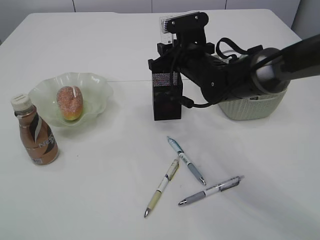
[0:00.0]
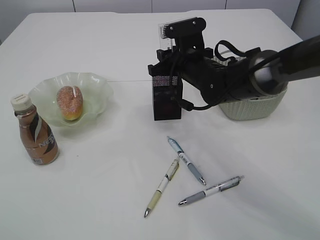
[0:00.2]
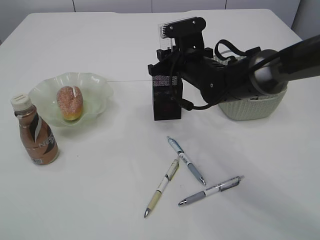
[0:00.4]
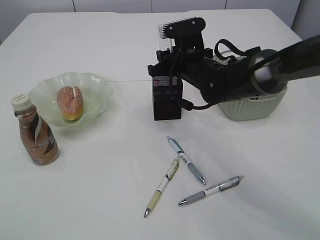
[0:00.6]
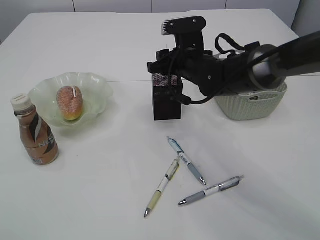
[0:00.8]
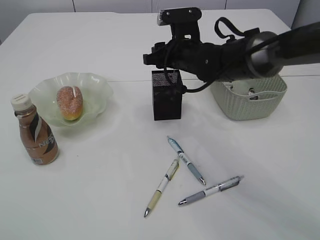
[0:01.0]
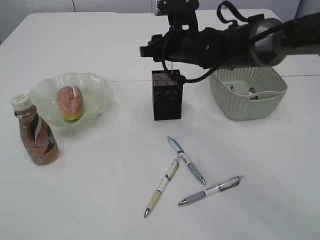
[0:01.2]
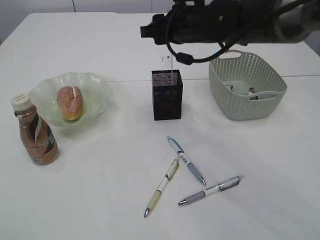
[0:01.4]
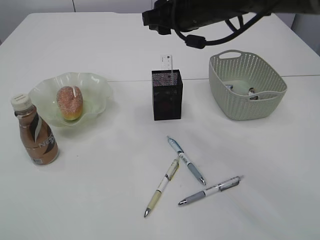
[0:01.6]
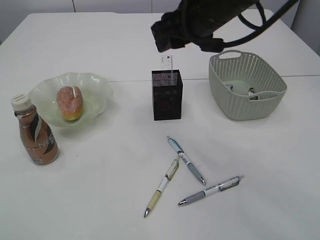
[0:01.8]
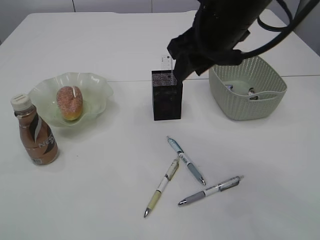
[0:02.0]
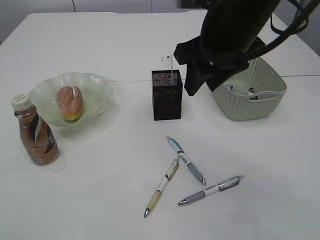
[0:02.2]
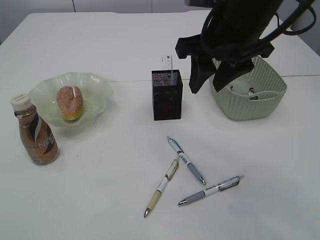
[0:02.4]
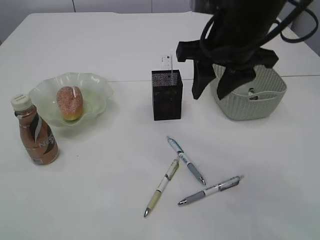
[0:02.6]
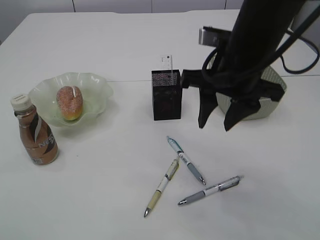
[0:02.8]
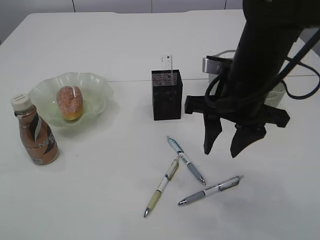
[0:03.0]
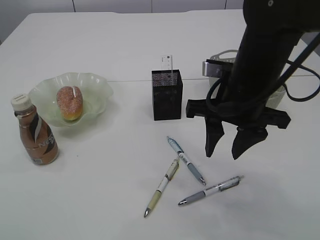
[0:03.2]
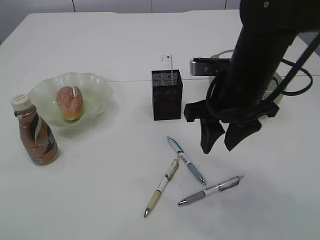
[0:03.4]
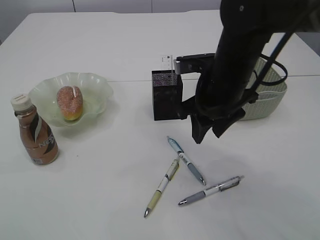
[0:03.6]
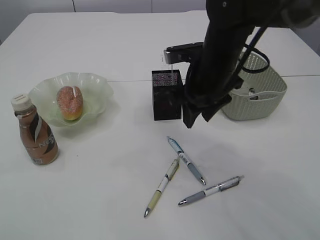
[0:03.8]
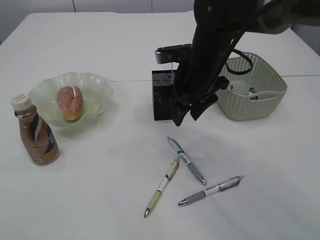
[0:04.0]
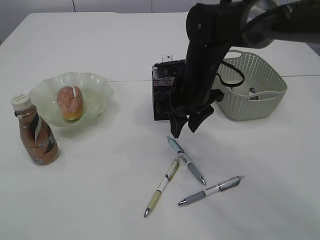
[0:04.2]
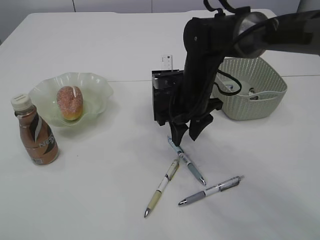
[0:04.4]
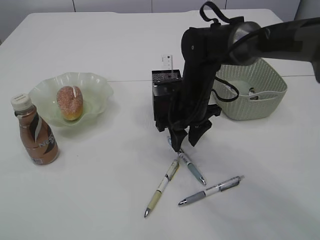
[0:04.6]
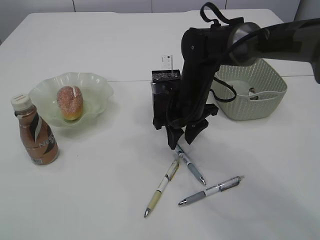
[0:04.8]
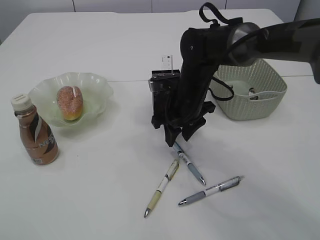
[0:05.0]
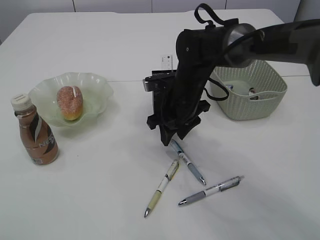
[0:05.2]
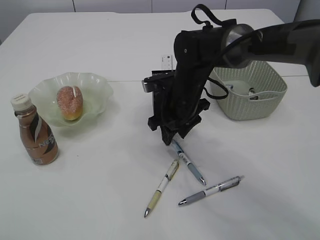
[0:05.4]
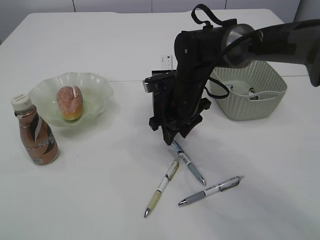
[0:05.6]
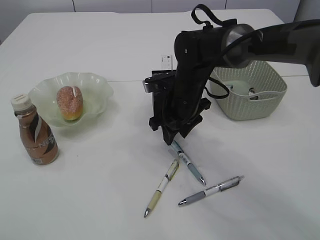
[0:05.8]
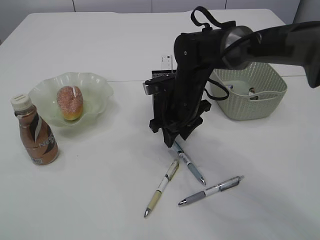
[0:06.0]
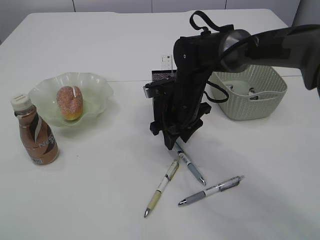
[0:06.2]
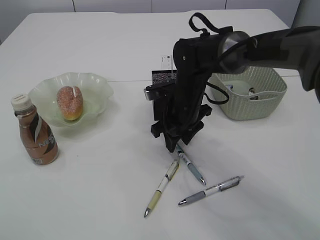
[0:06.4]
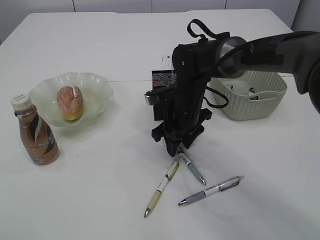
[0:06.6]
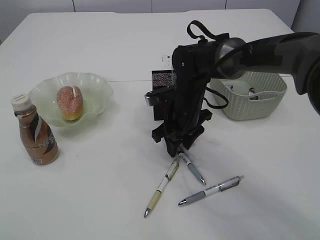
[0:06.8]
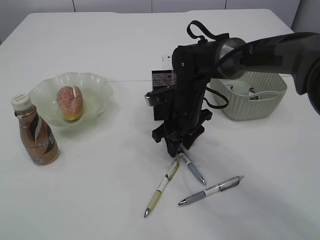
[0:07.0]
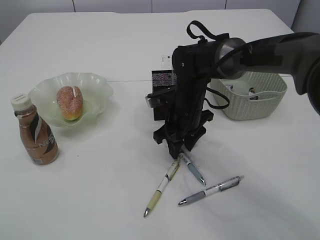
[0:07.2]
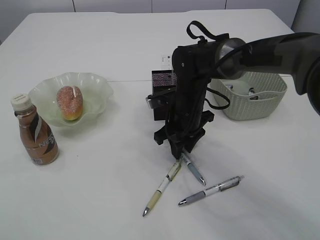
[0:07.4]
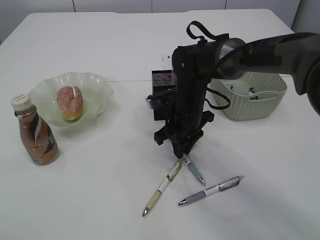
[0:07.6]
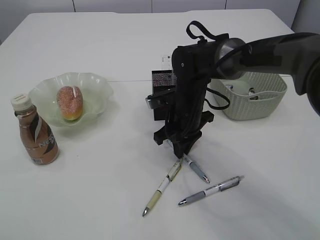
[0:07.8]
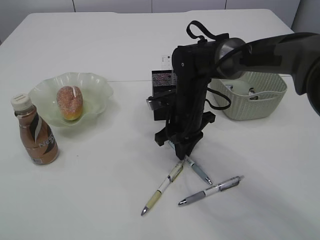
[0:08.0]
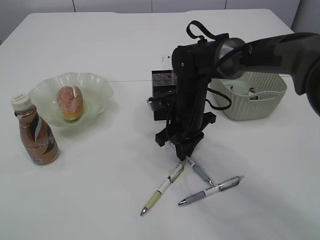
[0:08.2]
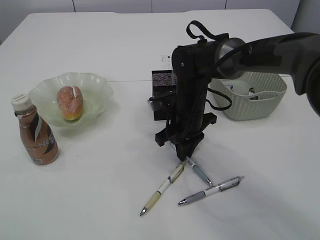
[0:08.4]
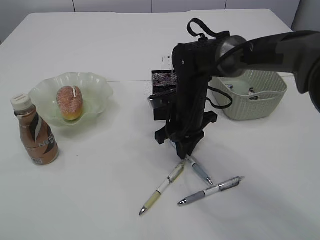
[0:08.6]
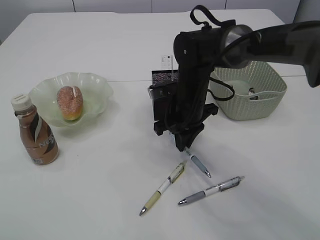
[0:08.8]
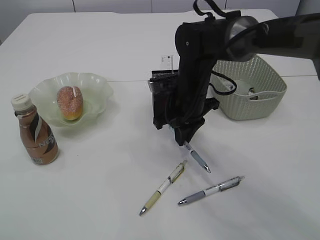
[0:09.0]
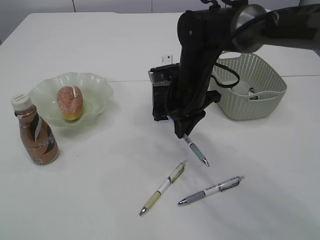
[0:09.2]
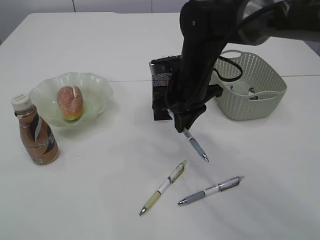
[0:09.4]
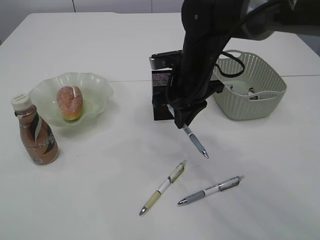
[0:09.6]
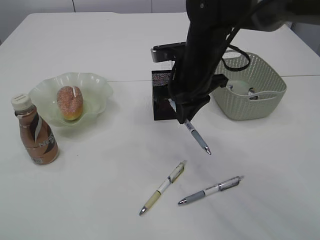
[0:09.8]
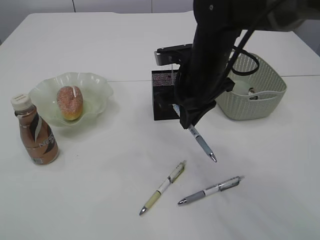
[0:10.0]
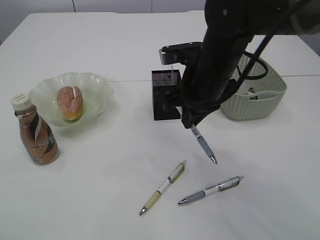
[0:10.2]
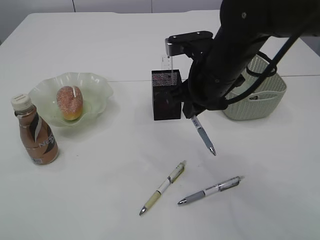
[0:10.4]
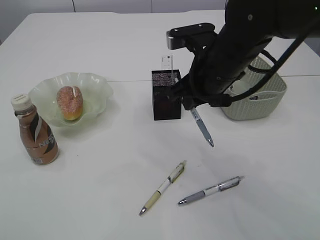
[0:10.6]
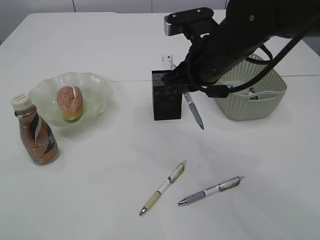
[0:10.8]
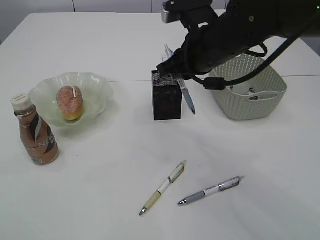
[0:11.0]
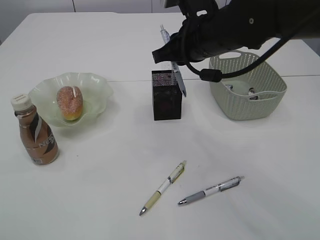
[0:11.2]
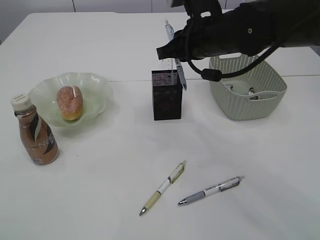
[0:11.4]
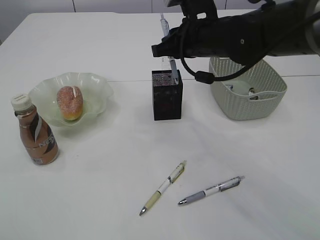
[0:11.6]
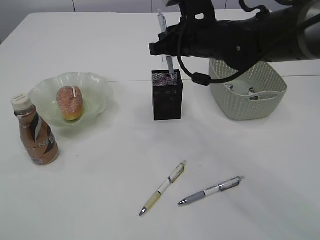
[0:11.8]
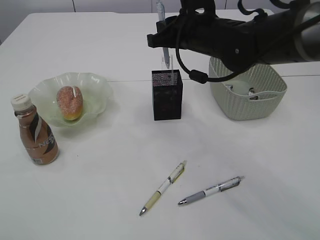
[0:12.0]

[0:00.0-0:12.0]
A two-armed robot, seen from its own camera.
Step, 0:01.6 to 0:09.6: Pick up the pen with right arm.
0:00.0 to 0:01.6: The right gripper goes some 10 cm upward.
0:01.6 to 0:03.0: The right gripper heads backward and downward, covering roughly 10 cm.
0:03.0 to 0:04.4: The right gripper travels forward and downward by about 15 cm.
0:04.4 to 0:09.0: The grippers make only small movements.
0:09.0 to 0:10.4: The right gripper heads upward and backward, covering roughly 10 cm.
0:10.4 to 0:12.0: The right gripper travels forward by roughly 5 cm.

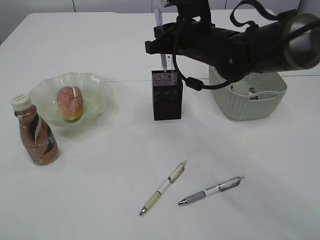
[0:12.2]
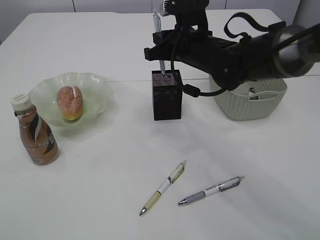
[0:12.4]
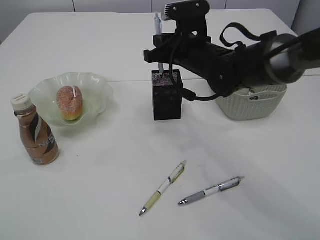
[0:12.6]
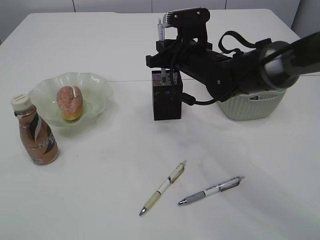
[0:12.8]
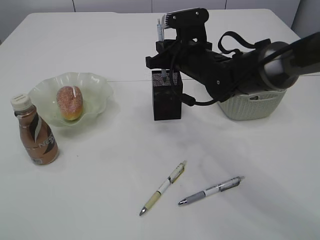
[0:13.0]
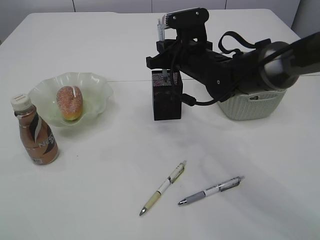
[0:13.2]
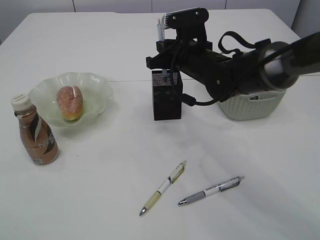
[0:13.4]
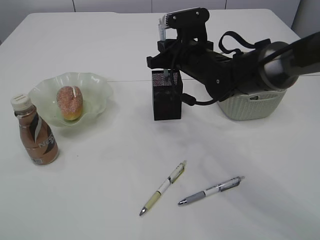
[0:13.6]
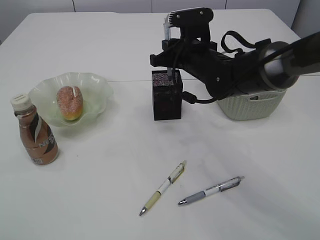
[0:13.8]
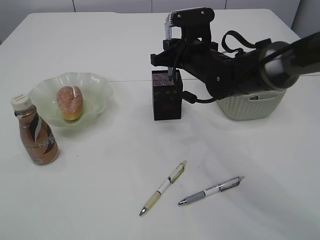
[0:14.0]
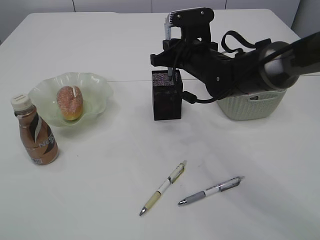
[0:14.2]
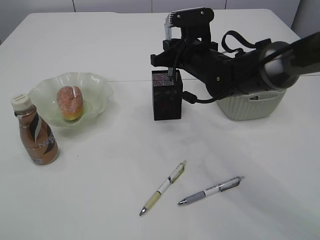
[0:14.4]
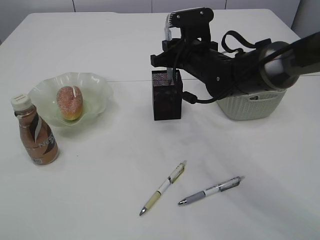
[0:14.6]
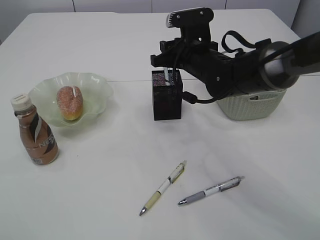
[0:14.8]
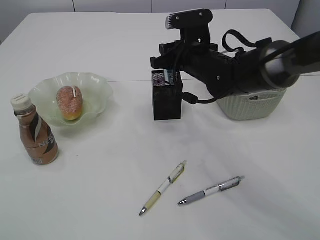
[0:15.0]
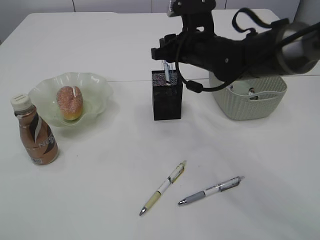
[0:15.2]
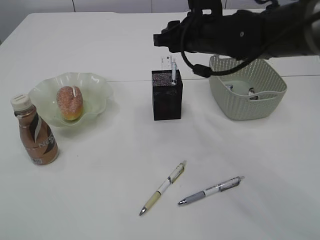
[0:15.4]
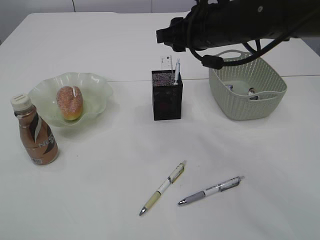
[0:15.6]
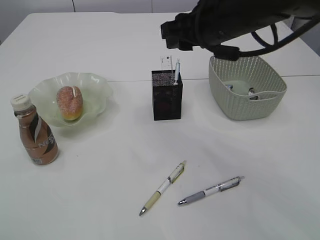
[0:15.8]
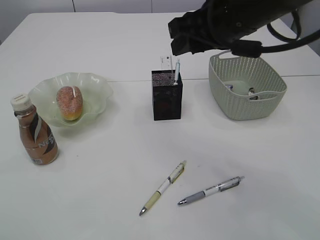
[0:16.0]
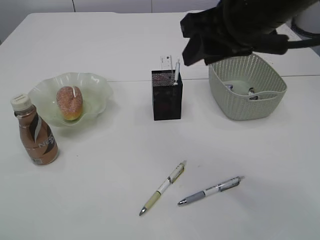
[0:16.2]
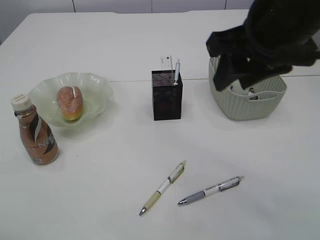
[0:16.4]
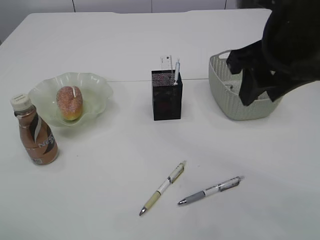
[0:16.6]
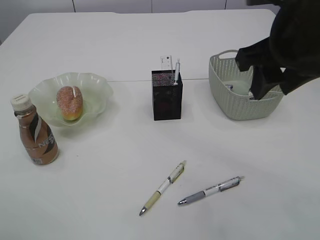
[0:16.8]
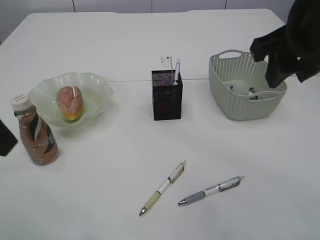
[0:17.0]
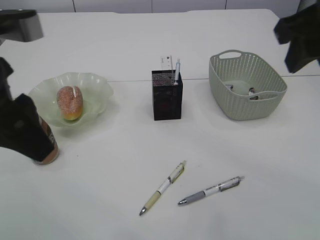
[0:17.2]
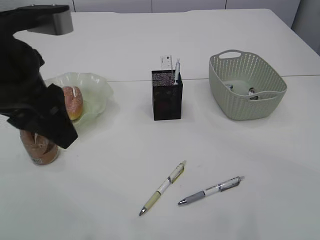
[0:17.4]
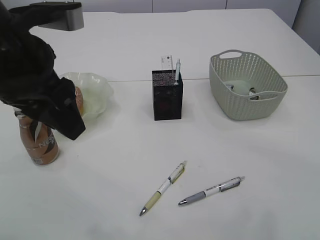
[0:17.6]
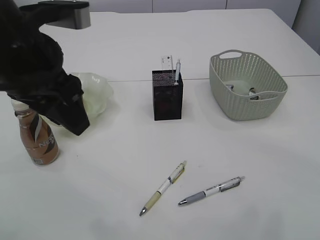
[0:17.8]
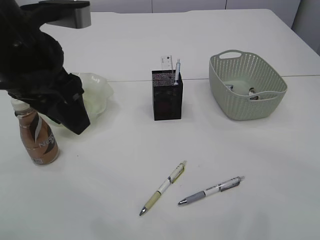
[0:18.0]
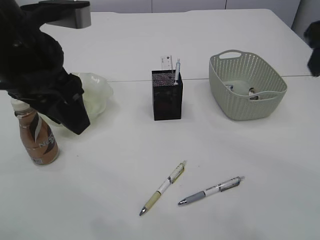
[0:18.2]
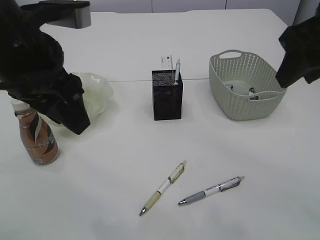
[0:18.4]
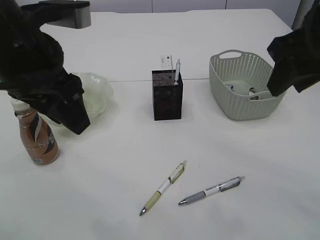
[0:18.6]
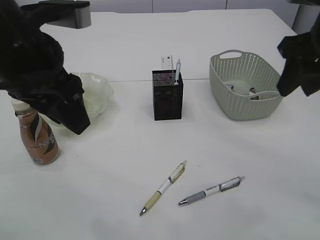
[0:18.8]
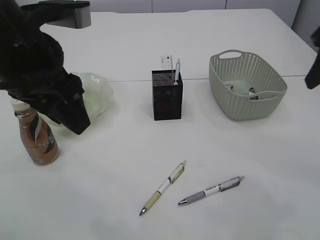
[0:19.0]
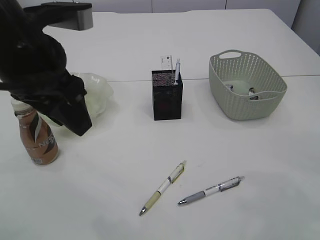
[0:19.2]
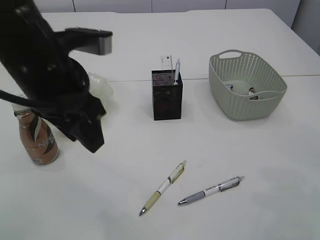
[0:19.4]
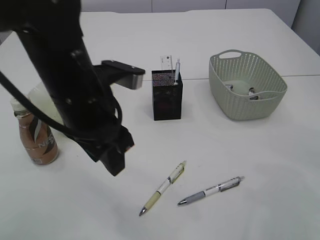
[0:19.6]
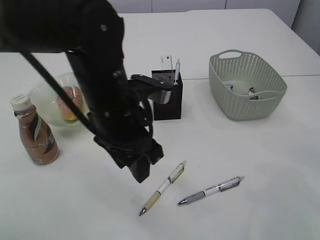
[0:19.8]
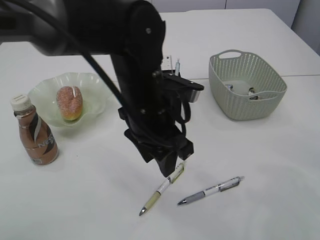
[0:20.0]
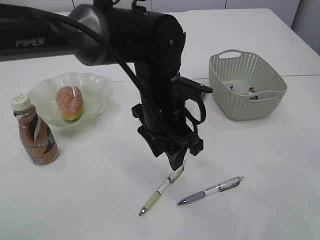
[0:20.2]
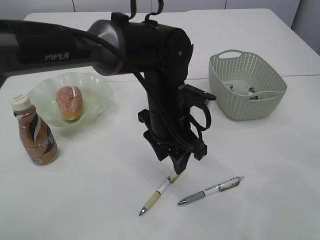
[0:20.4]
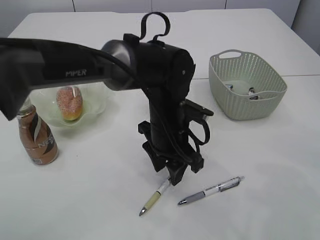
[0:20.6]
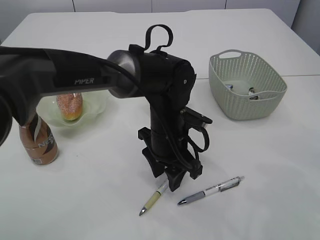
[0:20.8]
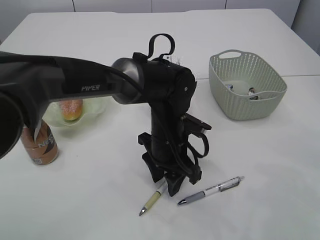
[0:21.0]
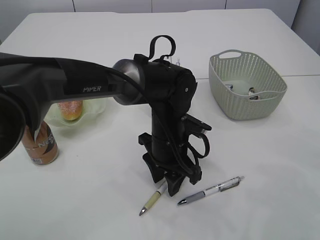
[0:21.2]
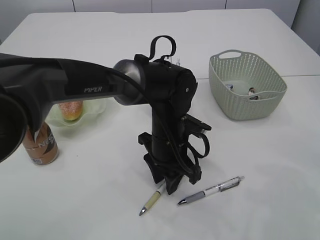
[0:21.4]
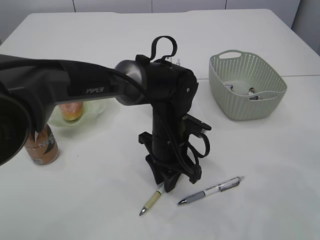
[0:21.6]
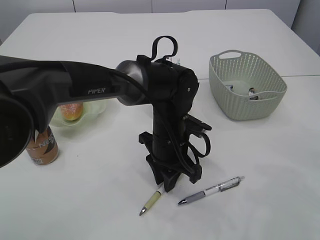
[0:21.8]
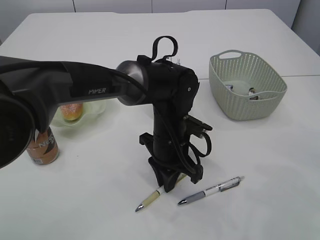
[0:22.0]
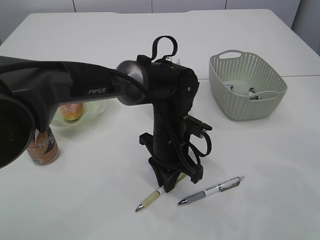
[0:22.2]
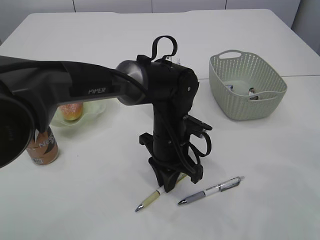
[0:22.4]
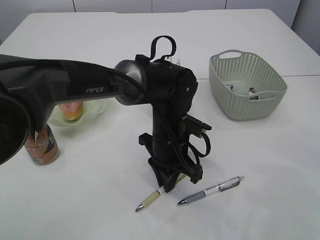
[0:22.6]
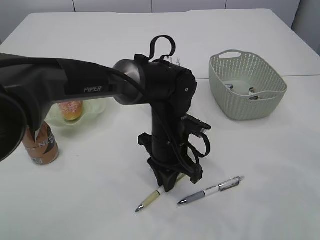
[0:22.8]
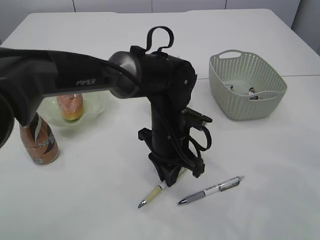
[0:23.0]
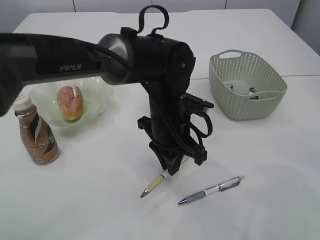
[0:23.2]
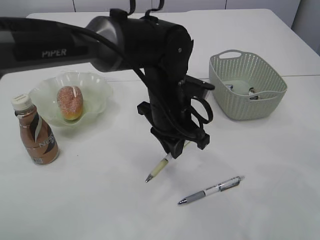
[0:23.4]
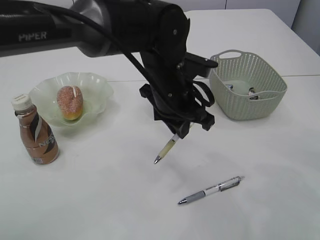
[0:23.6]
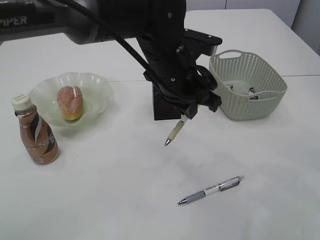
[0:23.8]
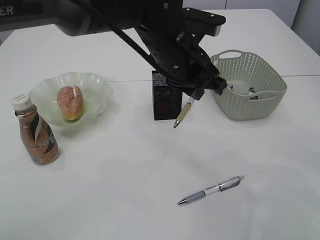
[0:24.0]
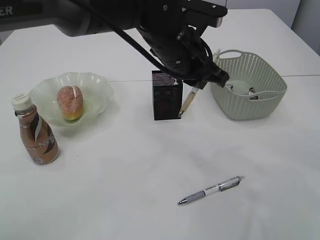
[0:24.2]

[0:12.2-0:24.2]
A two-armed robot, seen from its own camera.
Step, 0:12.2 to 0:15.8: Place the pen into the pen holder.
Step, 0:16.0 to 0:23.6: Pick up the pen with left arm.
0:12.2 to 0:13.8: There are only small adjustments of the grippers.
0:13.8 to 0:15.2: The right gripper opens its fingers.
0:15.2 to 0:16.6: The left gripper shifts by roughly 5 cm; the right gripper heads backward, upward and to the right, covering about 20 cm.
0:16.6 to 0:18.2: The left gripper goes about 15 cm to the right and forward; the right gripper is displaced to the right by roughly 10 cm.
0:18.2 to 0:19.8: The right gripper shifts some 15 cm to the right, downward and forward. The left gripper moves downward and to the right, roughly 15 cm.
0:19.8 to 0:21.2: The left gripper moves downward, to the right and forward, approximately 15 cm.
0:21.2 to 0:22.6: The left gripper closes up.
0:22.6 to 0:24.2: The left gripper moves upward, roughly 15 cm.
